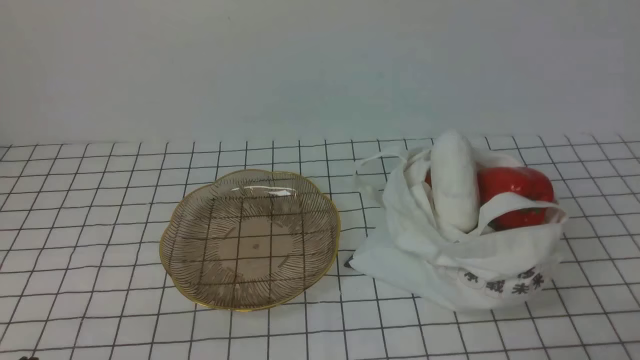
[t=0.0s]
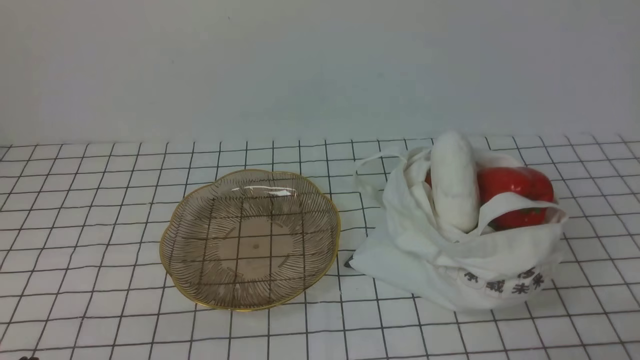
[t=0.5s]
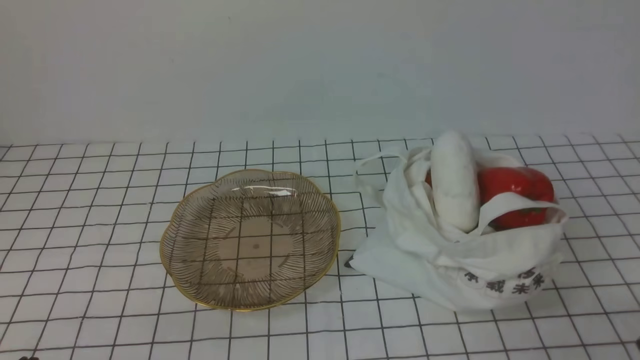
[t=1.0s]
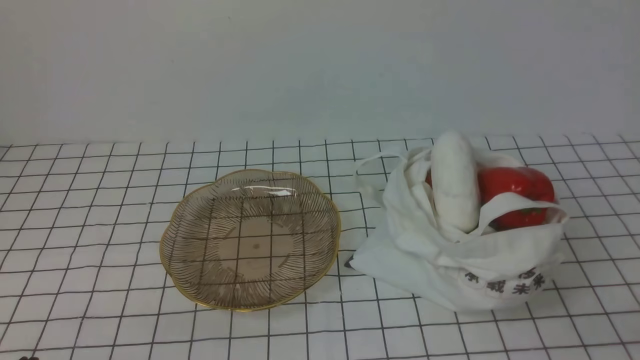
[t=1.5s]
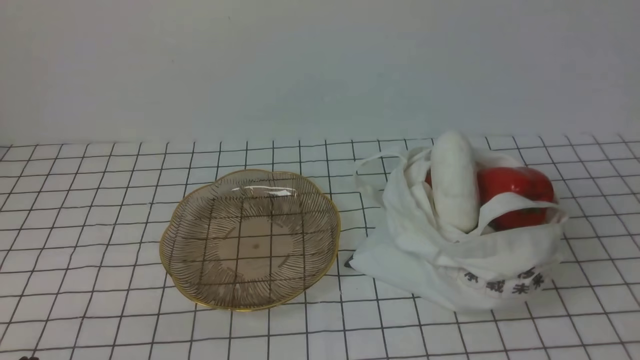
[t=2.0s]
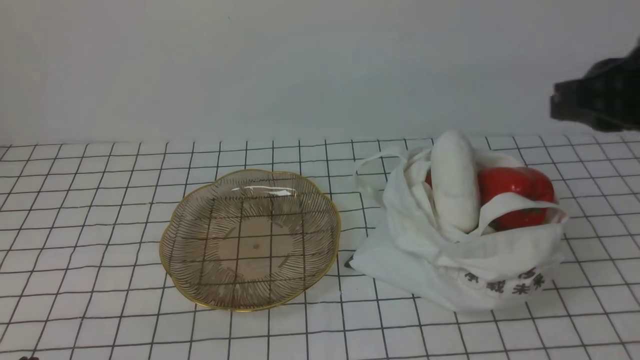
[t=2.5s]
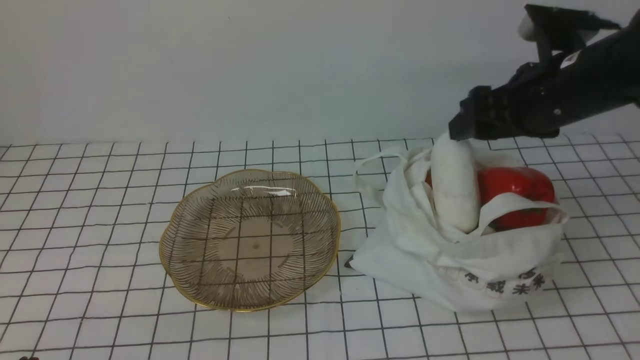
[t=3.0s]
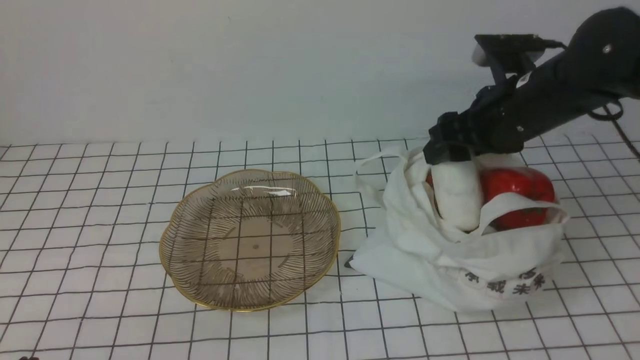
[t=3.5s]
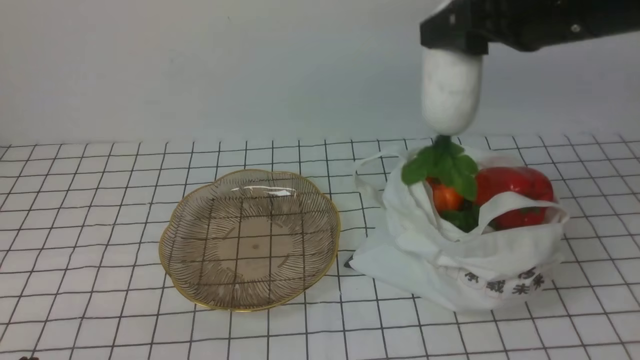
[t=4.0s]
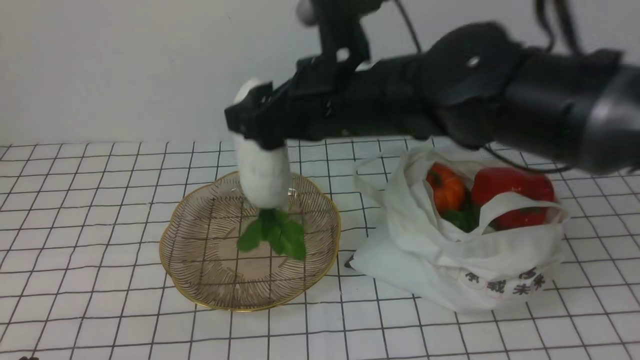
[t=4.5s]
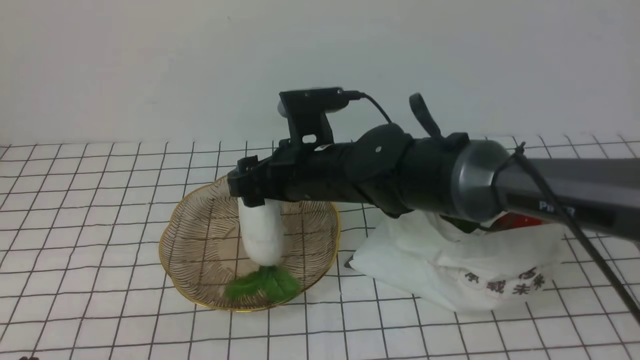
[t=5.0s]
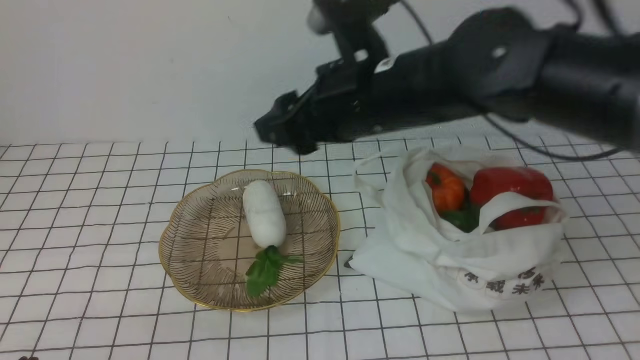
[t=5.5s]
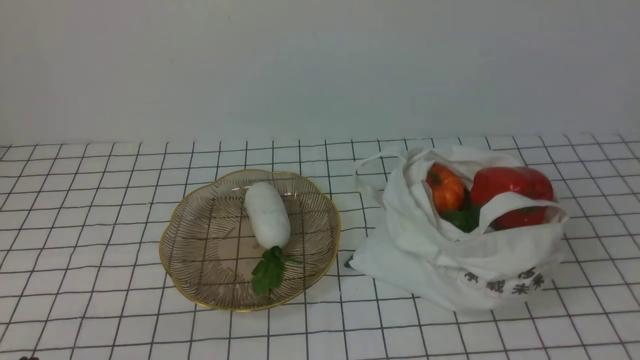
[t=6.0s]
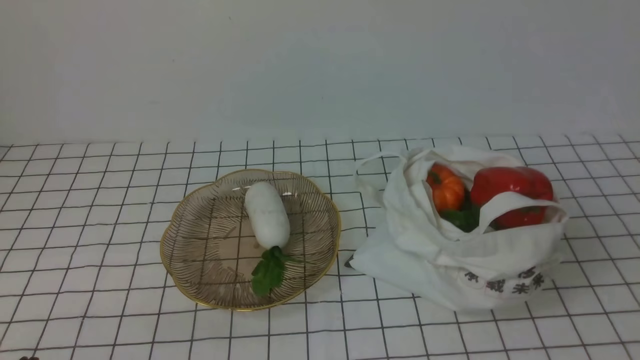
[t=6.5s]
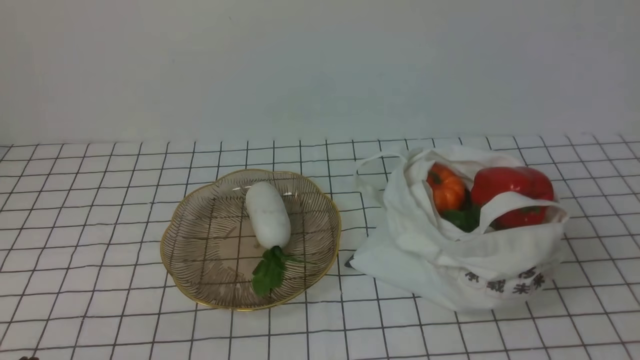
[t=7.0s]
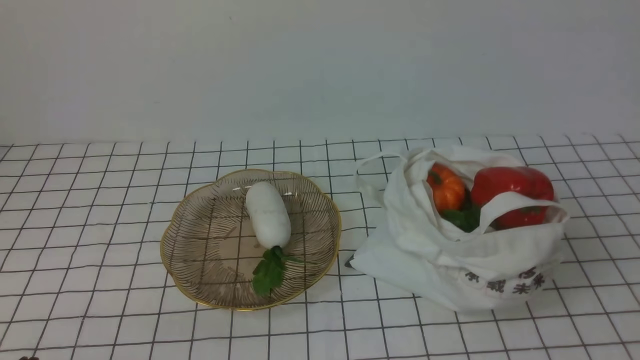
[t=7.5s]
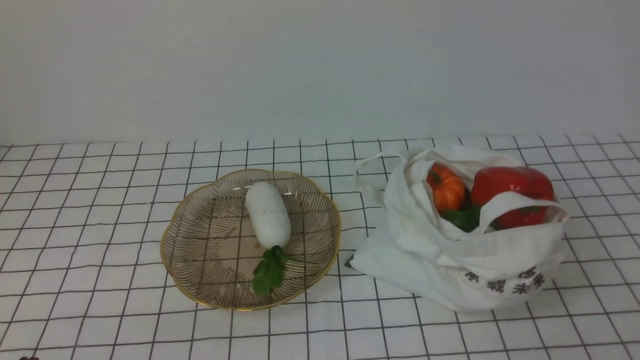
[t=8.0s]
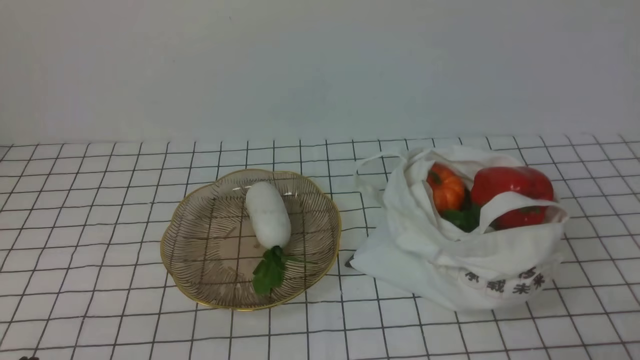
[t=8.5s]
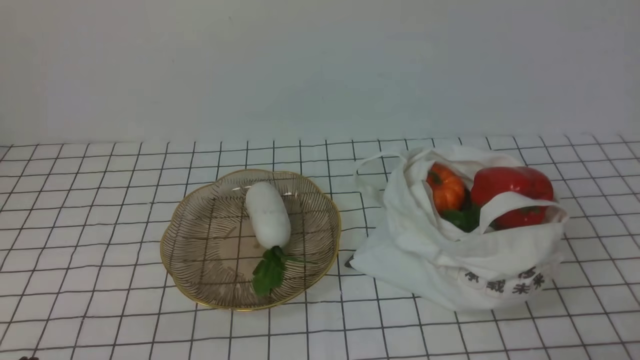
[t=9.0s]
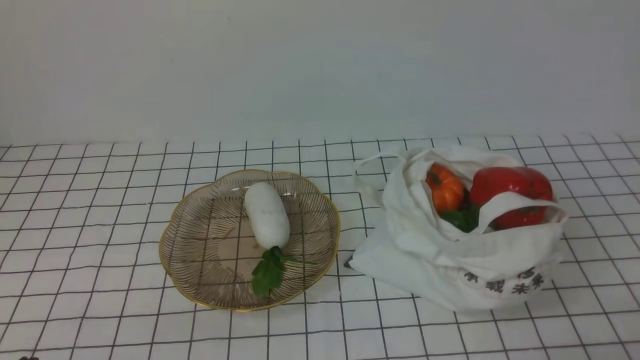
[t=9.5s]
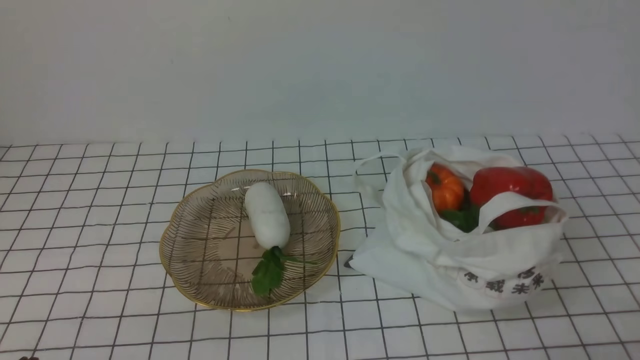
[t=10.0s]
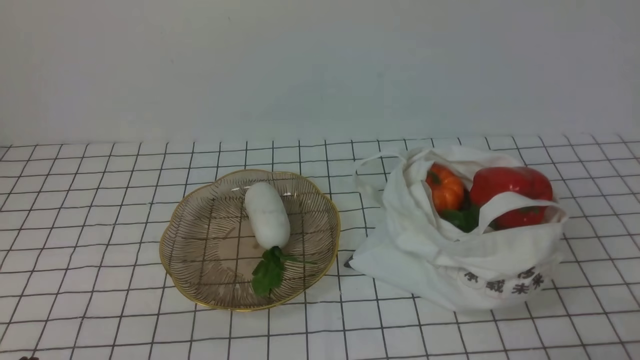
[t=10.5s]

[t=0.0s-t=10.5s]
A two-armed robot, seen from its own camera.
Task of the whole recording: take vegetables from bag on white checkered tablecloth place on plate.
Step, t=0.0s to t=3.0s: Grasp the radish with right gripper.
Step, t=3.5s to t=5.0s: Place the radish on the plate with right gripper.
t=2.0s to t=4.0s: The right gripper moves forward and to the left, about 30 cm, and opens up.
t=4.0s to t=6.5s: The right gripper shifts approximately 35 cm backward and to the right, and closes up.
t=8.5s to t=10.5s: The two grippers keep their place.

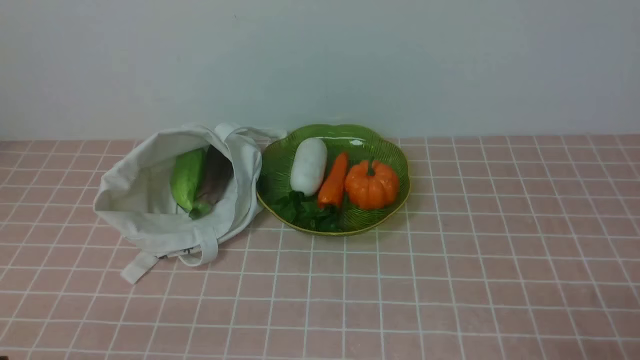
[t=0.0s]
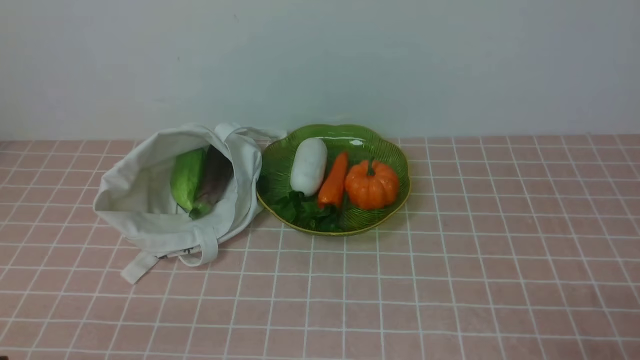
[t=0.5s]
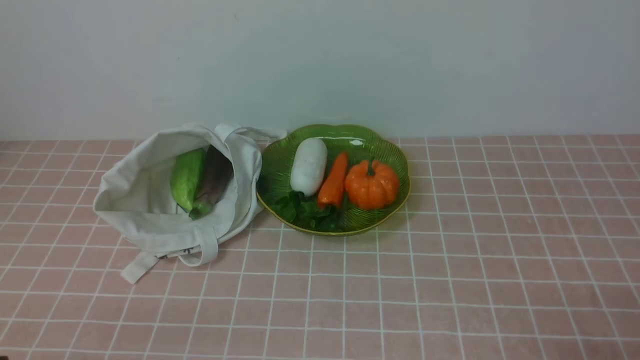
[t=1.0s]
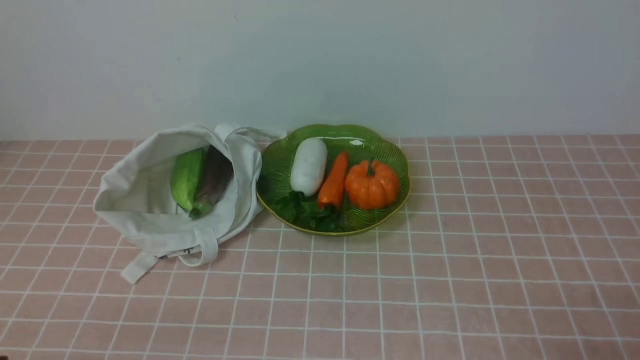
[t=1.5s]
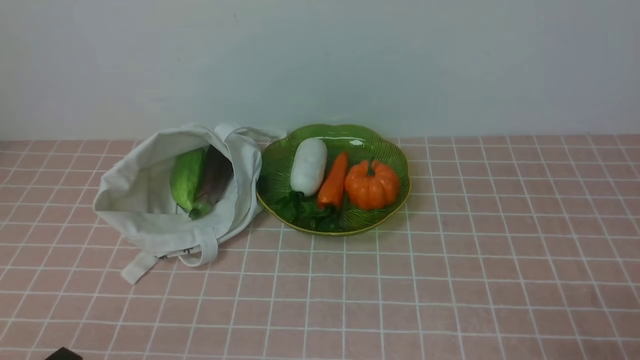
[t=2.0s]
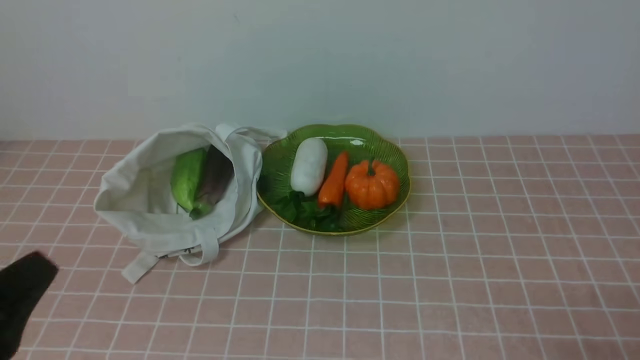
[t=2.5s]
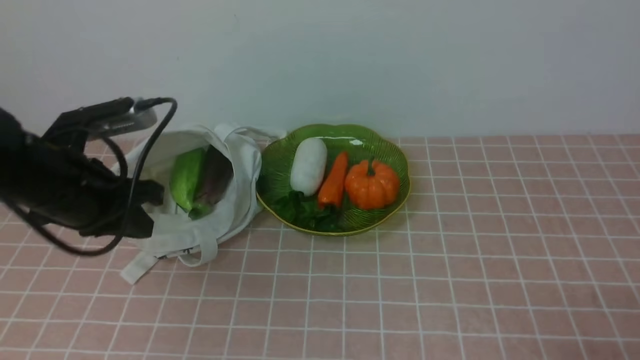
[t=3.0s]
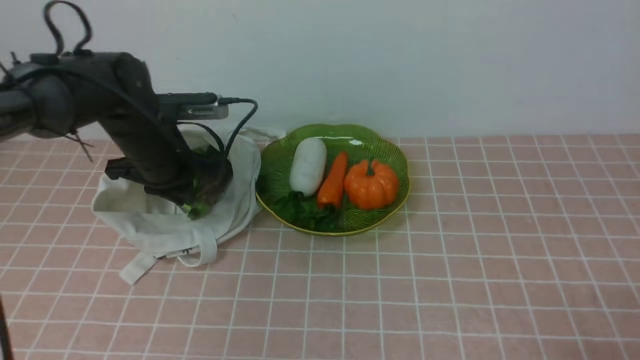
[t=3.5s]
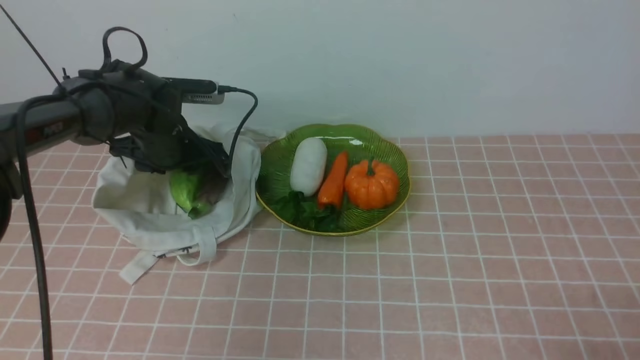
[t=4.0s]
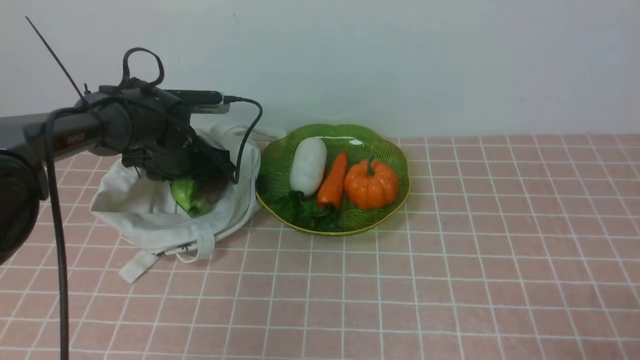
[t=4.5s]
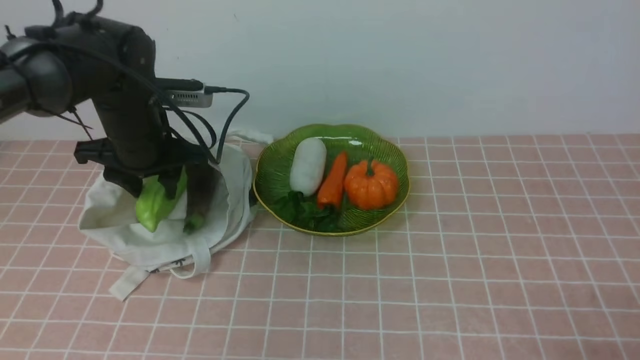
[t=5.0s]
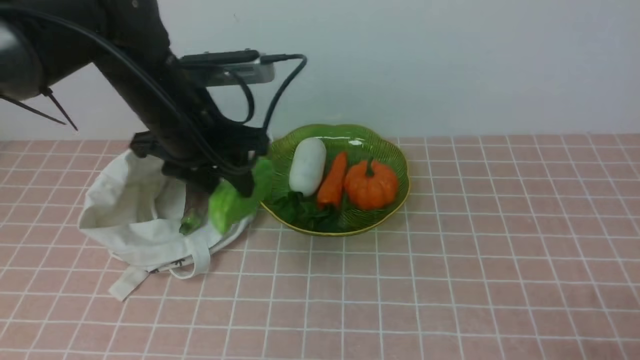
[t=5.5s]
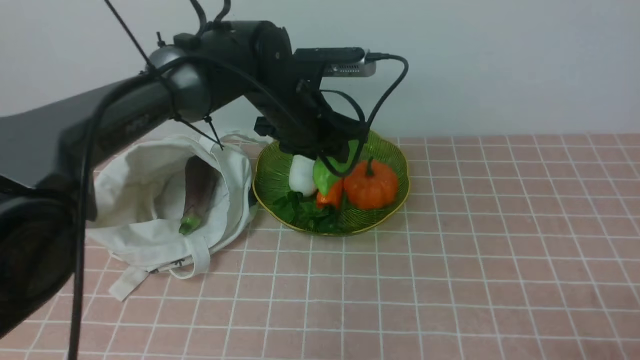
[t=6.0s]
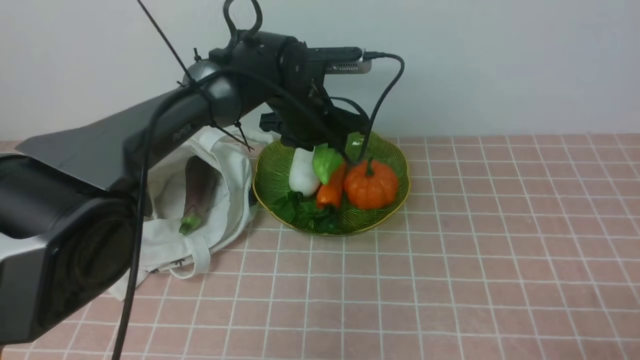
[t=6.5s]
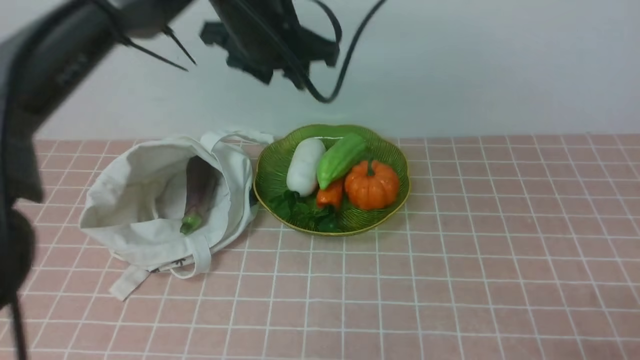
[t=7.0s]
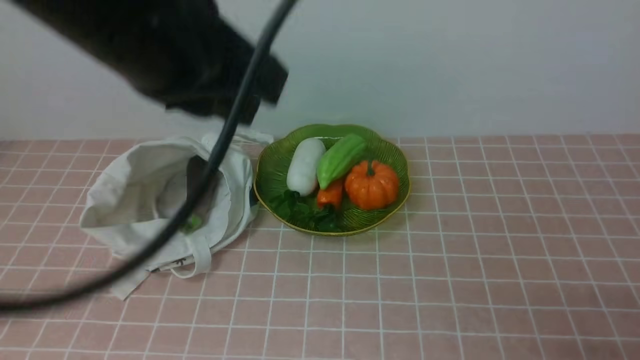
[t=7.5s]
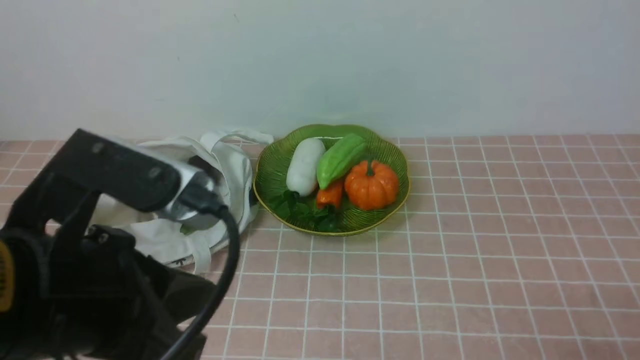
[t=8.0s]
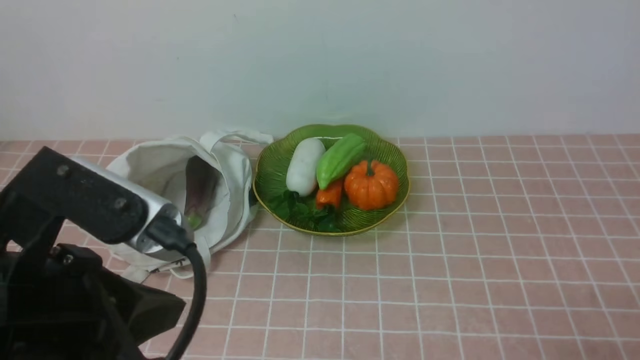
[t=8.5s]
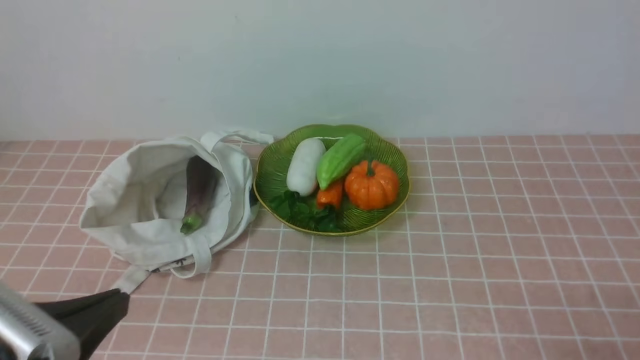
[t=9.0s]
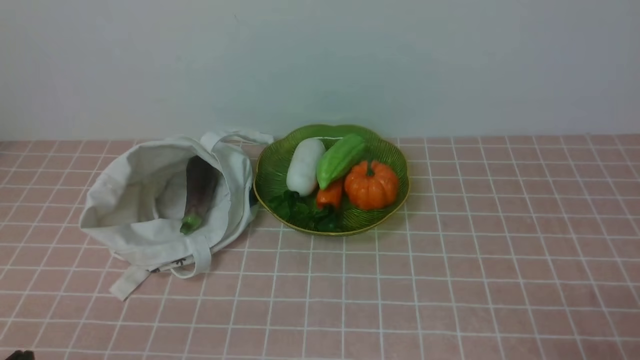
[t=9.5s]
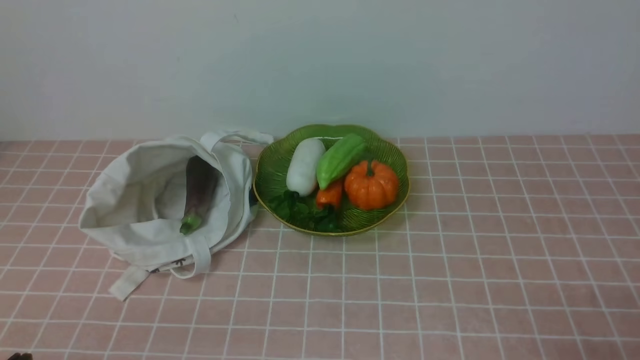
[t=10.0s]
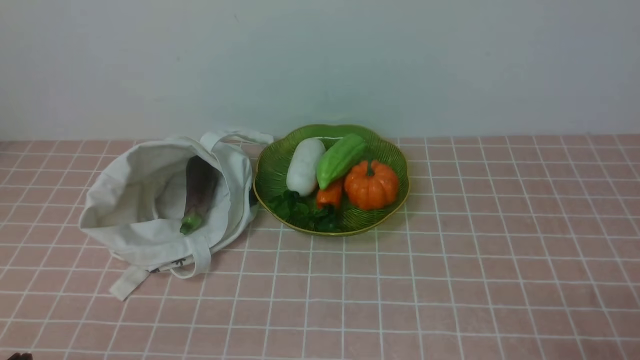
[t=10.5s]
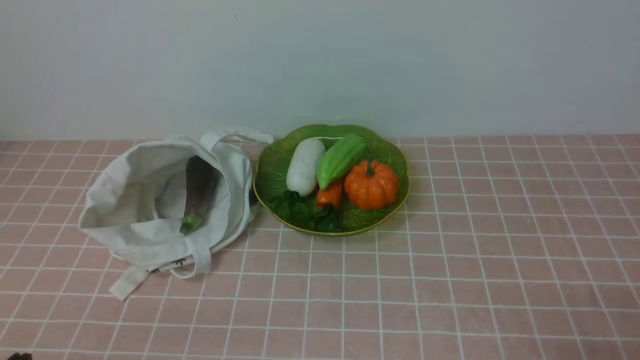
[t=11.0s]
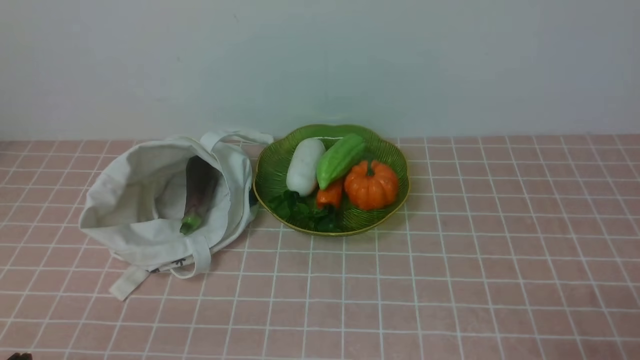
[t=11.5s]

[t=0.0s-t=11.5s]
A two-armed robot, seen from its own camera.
Task of the whole recording: take vegetables from bag on pink coffee tablecloth place on plate.
Step, t=0.0s to t=4.0s: Grasp the bitter melon with left gripper.
Step, t=5.0s to t=6.5s: Place the bitter melon on the plate with left gripper.
t=2.0s to t=4.0s: The left gripper shifts roughly 40 cm forward, and opens.
t=4.0s to t=6.0s: The left gripper goes approximately 20 cm to the right and upward.
t=6.0s to t=7.5s: The left gripper shifts approximately 25 cm upward and backward, and closes up.
t=7.5s to t=9.5s: The left gripper moves downward, backward and to the left, about 35 cm.
